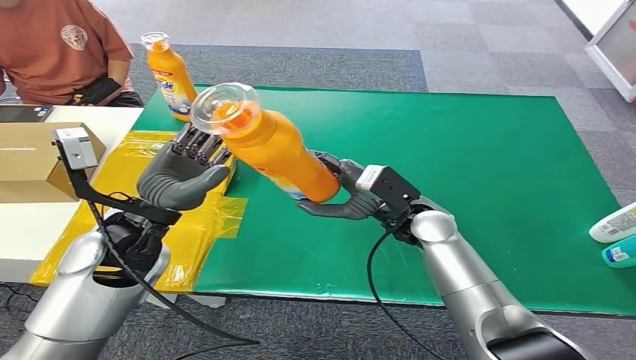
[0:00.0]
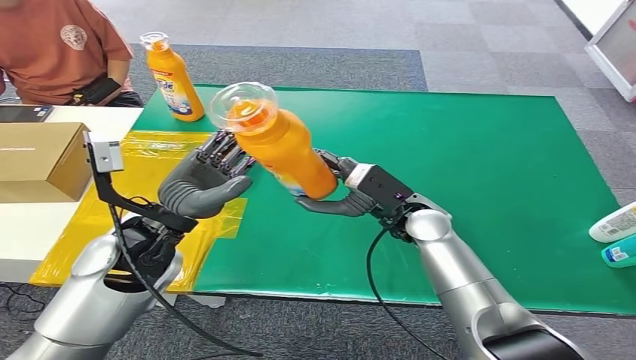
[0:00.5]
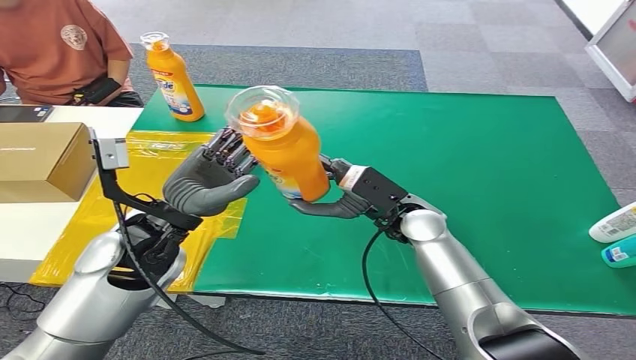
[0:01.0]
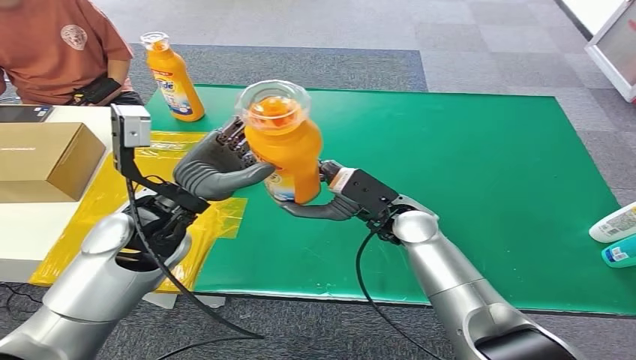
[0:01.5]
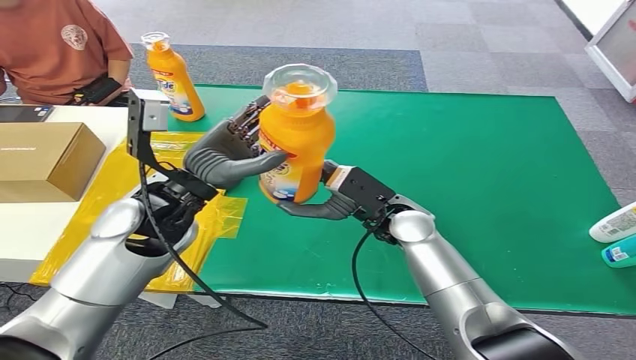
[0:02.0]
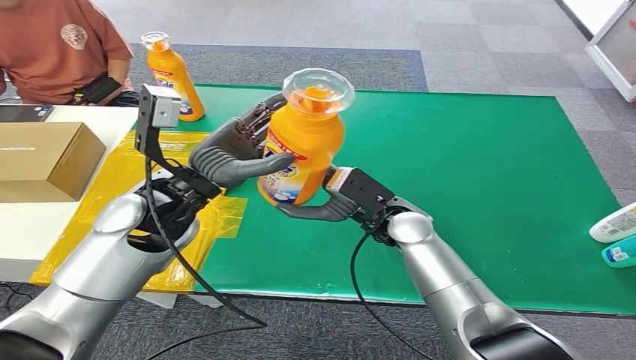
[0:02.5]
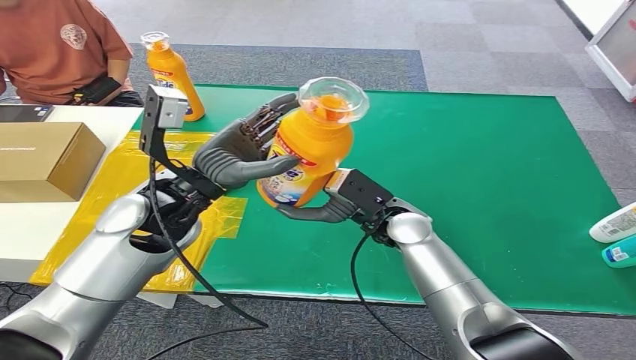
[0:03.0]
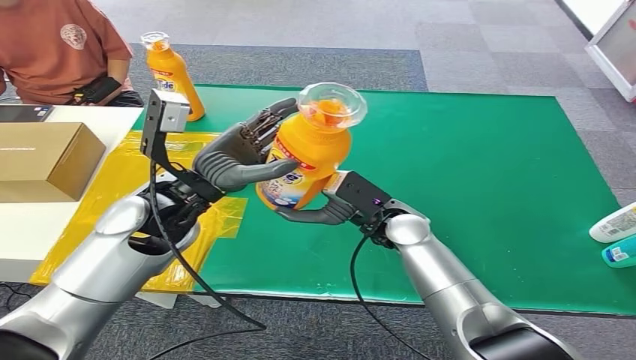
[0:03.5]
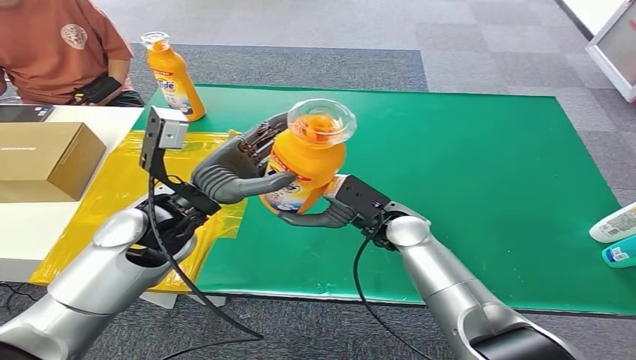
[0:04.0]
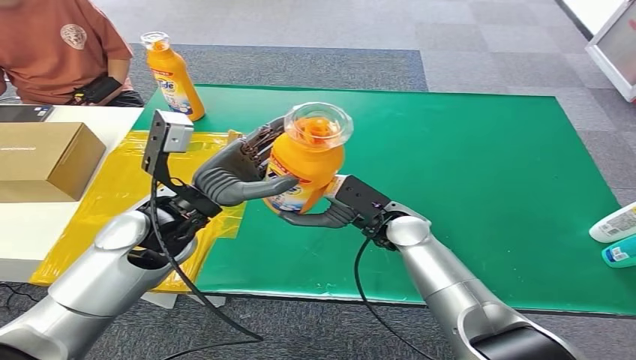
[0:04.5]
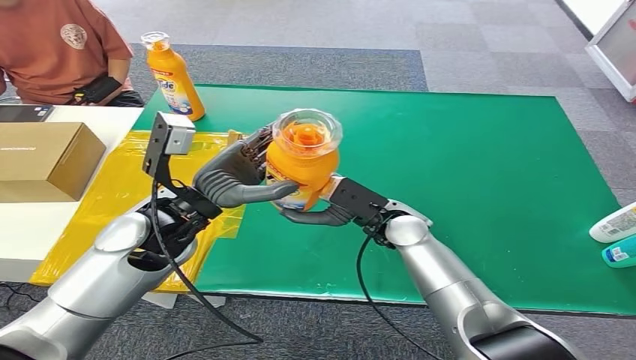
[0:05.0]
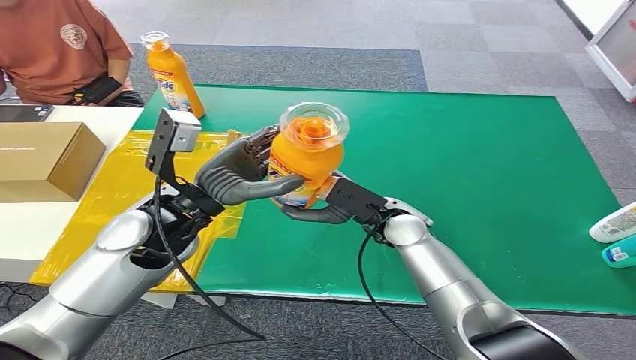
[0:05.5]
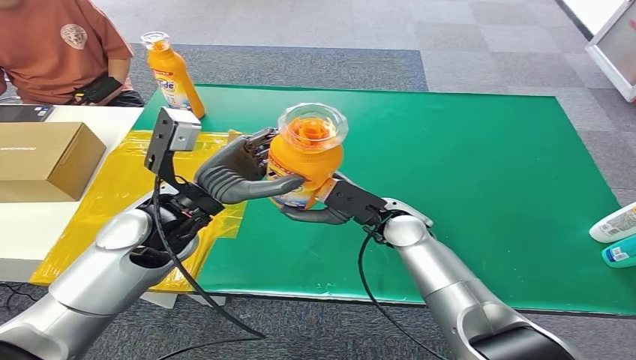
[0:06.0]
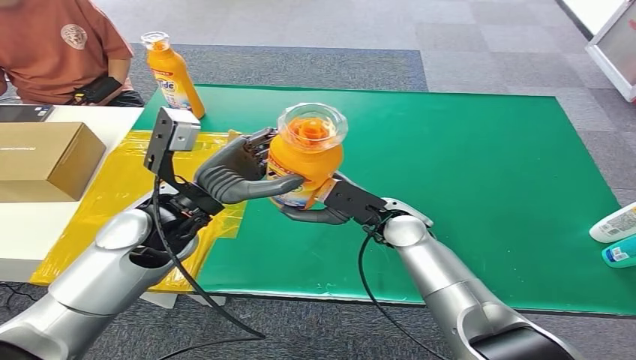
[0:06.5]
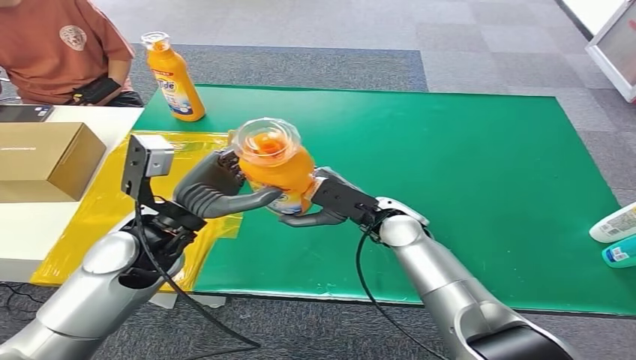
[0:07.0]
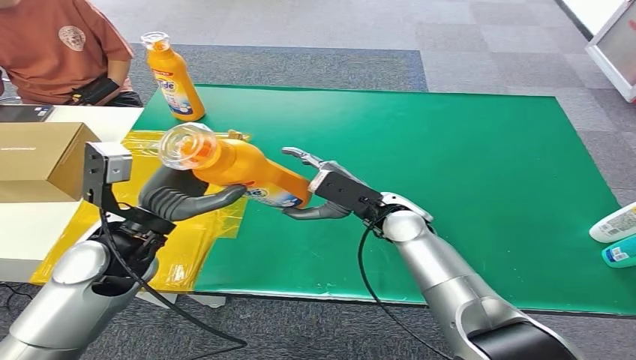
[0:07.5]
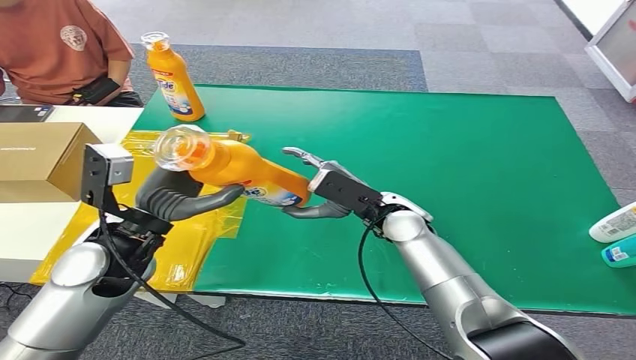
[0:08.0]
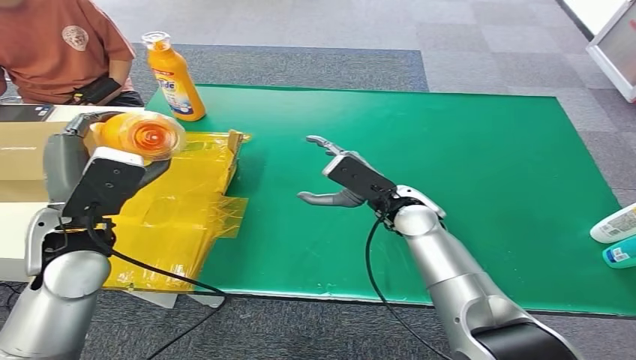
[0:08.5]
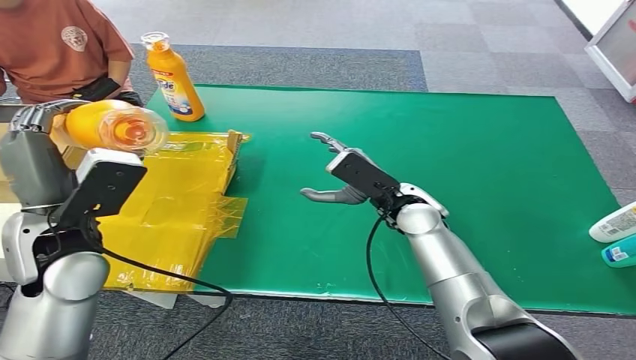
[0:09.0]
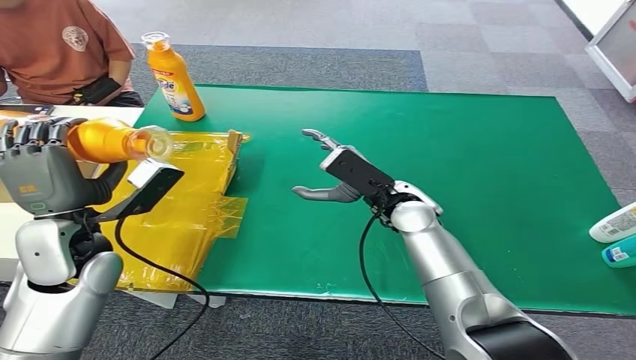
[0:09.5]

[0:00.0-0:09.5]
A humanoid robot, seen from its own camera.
0:02.0 to 0:05.5: The hands make only small movements.
0:05.5 to 0:07.5: The left hand is displaced to the left by about 5 cm.

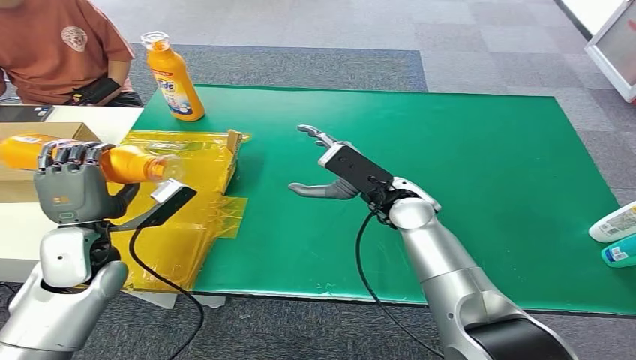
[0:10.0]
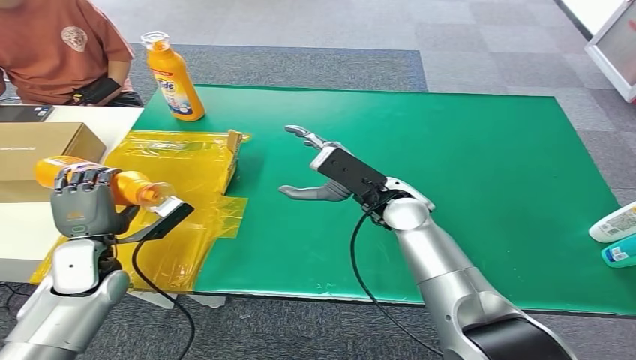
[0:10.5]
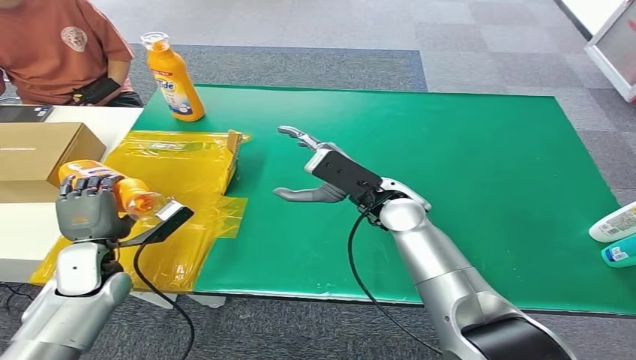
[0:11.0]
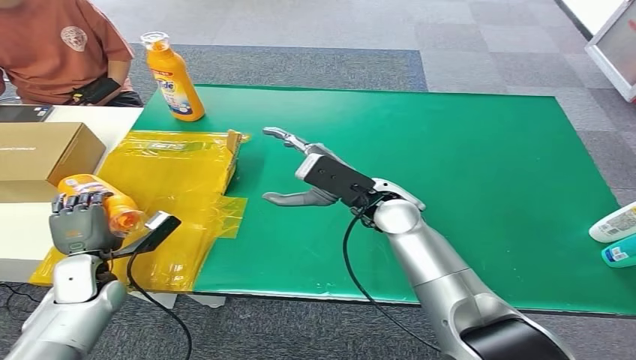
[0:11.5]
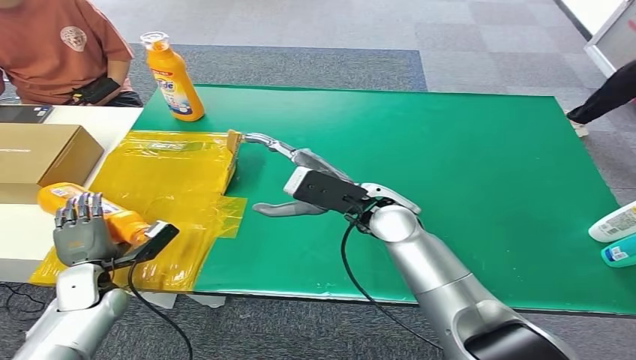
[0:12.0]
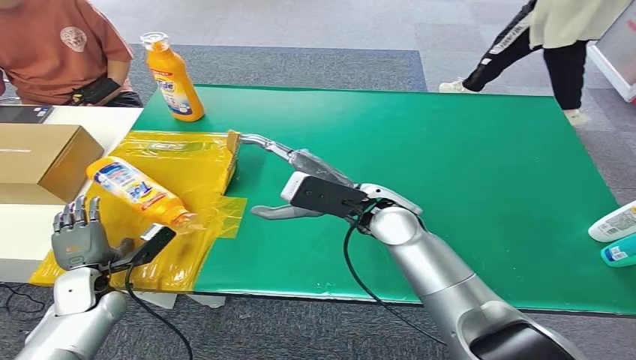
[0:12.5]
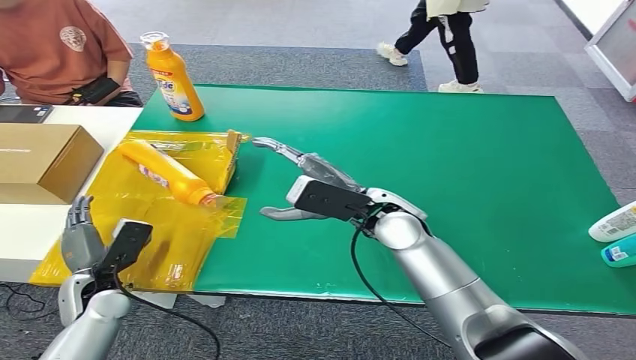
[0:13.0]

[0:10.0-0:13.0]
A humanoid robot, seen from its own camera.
Step, 0:10.0 to 0:13.0: Turn the bottle to the front side.
0:10.0 to 0:11.5: The left hand moves downward, about 10 cm.

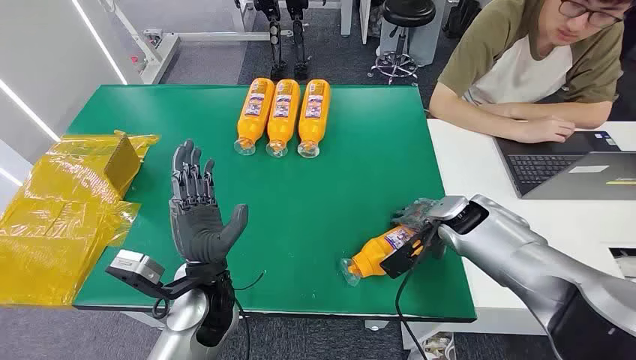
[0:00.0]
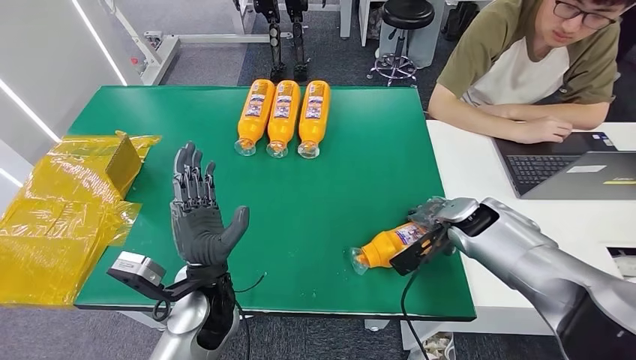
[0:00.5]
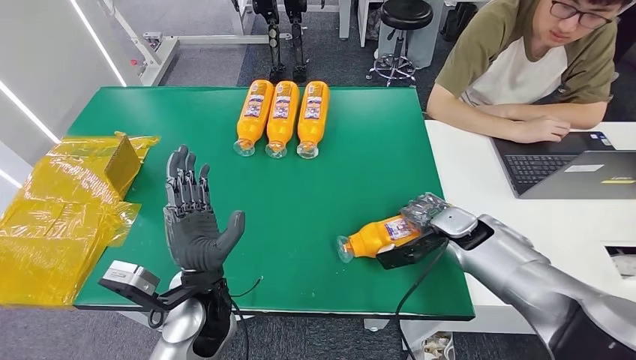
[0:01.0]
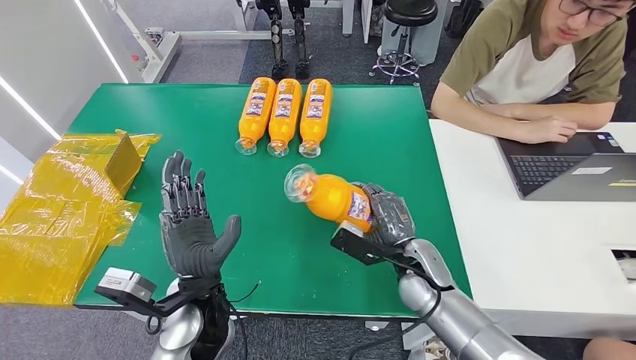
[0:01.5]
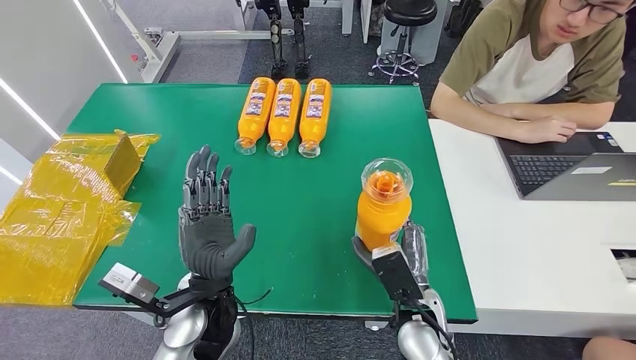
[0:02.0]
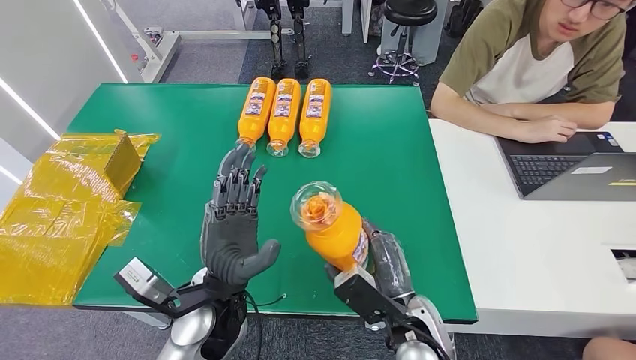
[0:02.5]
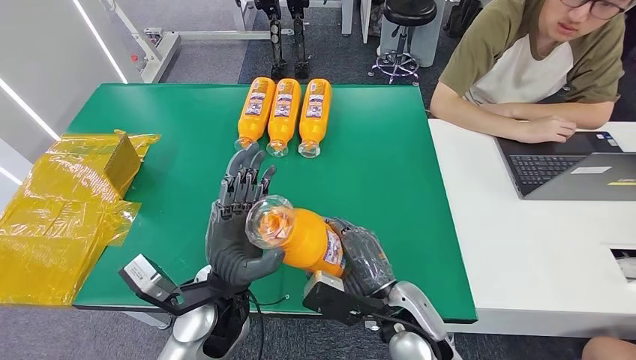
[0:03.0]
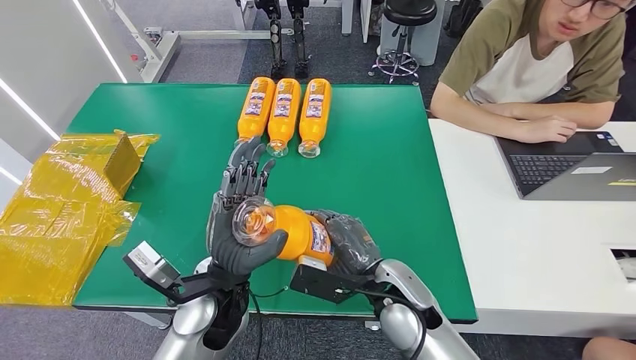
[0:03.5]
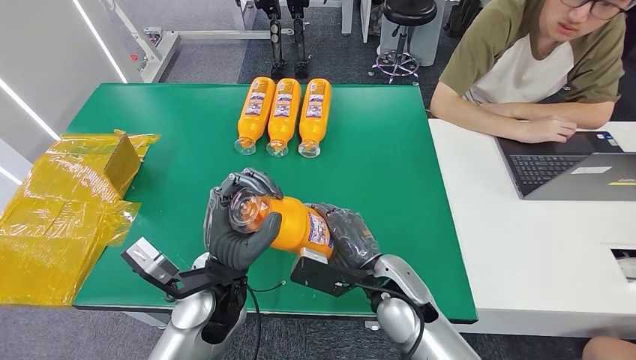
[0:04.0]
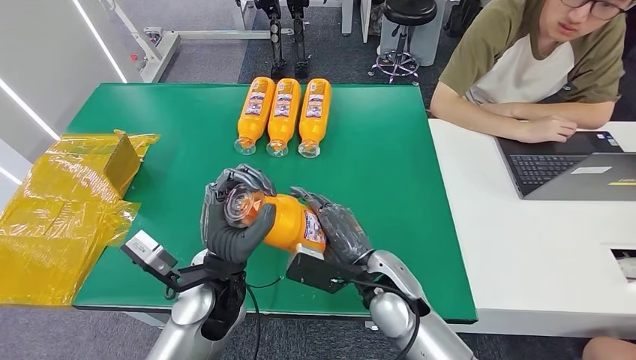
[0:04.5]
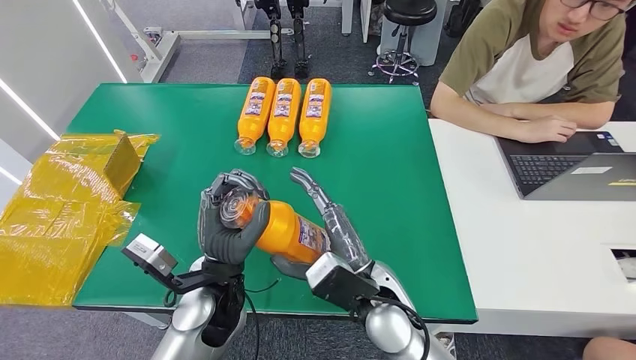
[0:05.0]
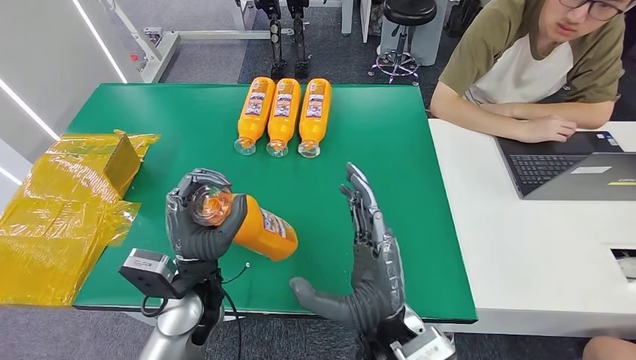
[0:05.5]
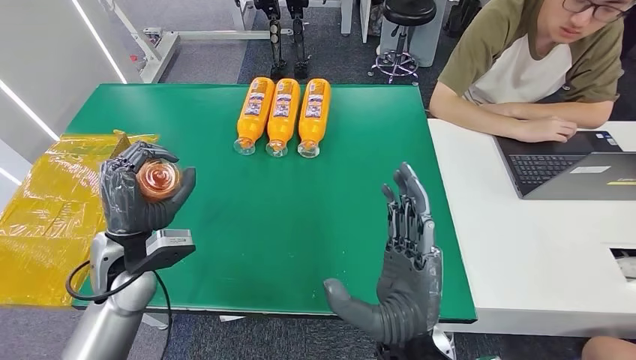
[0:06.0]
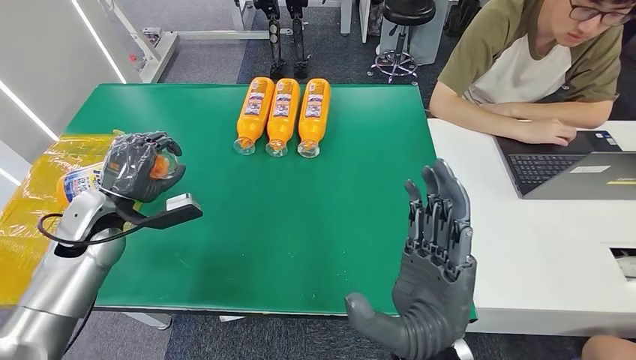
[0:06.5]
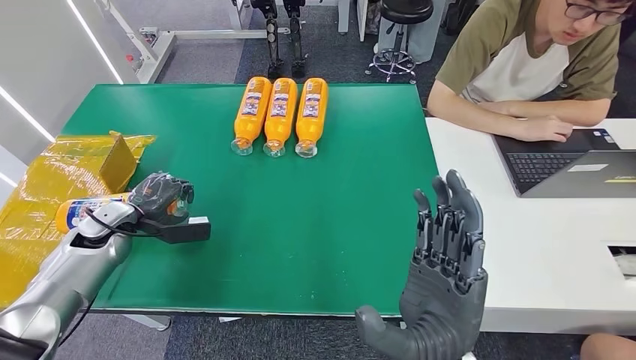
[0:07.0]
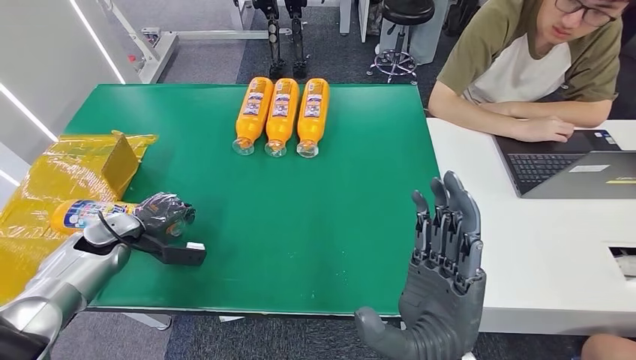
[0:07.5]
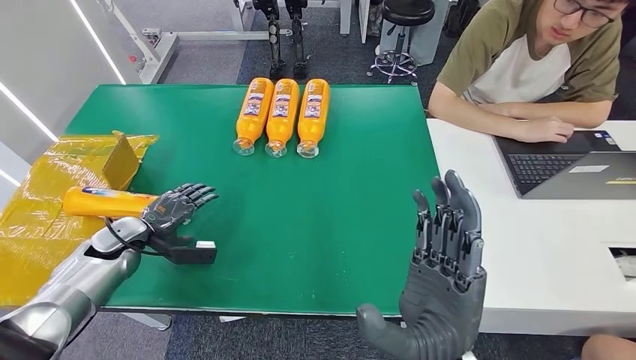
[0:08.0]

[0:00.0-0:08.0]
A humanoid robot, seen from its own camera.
Step, 0:00.0 to 0:02.0: Pick up the bottle from the table.
Step, 0:02.5 to 0:08.0: Turn the bottle to the front side.
0:02.0 to 0:04.0: The right hand goes roughly 10 cm upward and to the left.
0:04.0 to 0:06.0: The left hand shifts some 15 cm to the left. The right hand moves backward and upward, about 10 cm.
0:06.0 to 0:08.0: The left hand is displaced to the left, downward and forward by about 20 cm.
